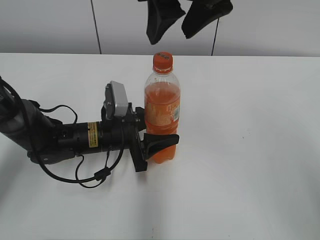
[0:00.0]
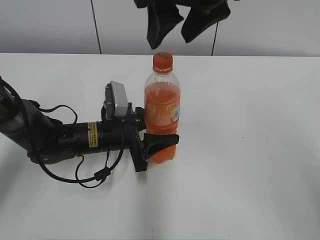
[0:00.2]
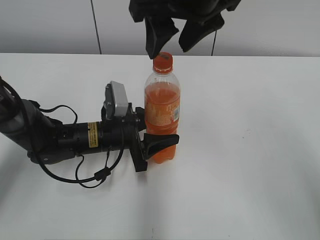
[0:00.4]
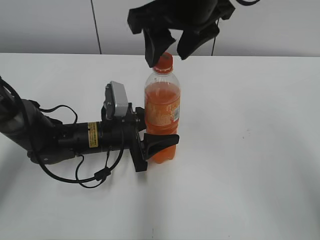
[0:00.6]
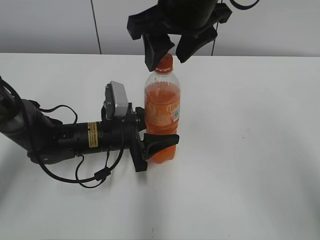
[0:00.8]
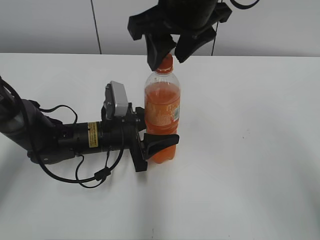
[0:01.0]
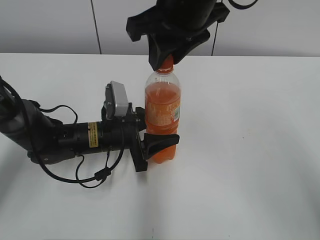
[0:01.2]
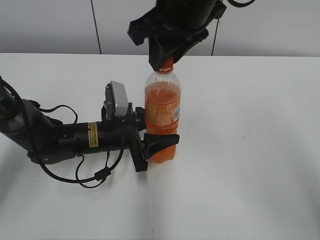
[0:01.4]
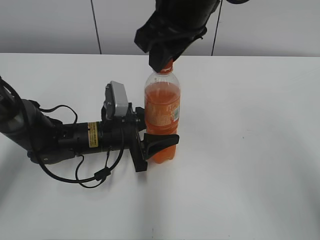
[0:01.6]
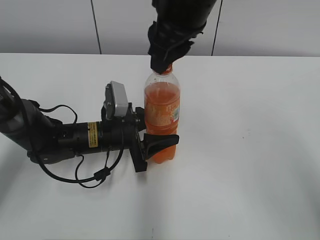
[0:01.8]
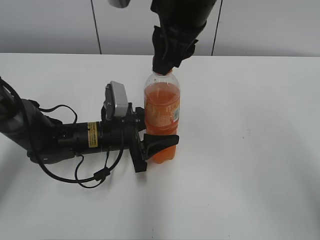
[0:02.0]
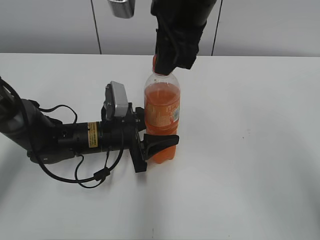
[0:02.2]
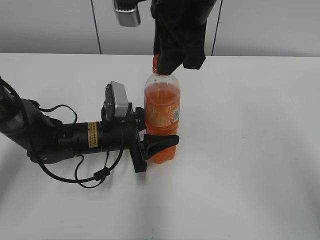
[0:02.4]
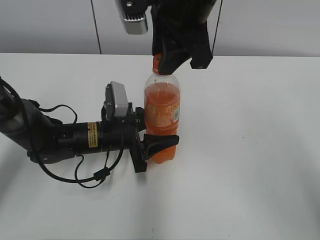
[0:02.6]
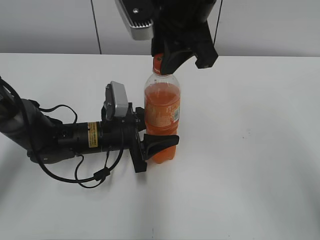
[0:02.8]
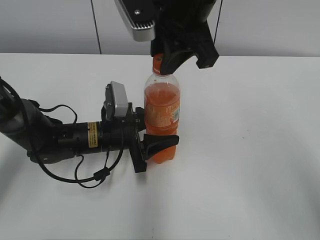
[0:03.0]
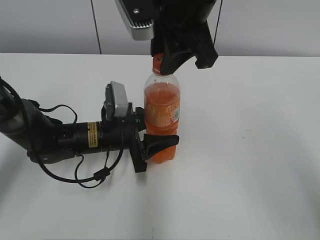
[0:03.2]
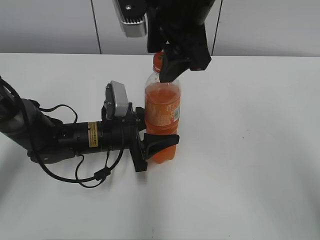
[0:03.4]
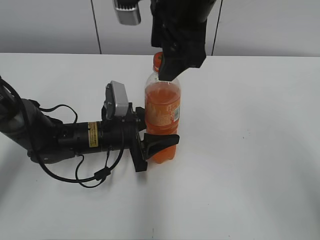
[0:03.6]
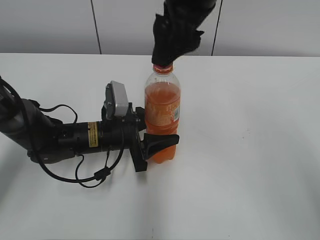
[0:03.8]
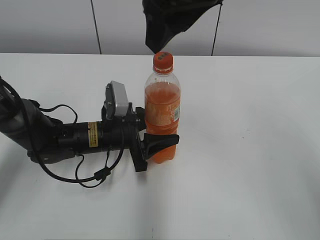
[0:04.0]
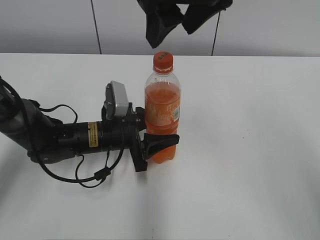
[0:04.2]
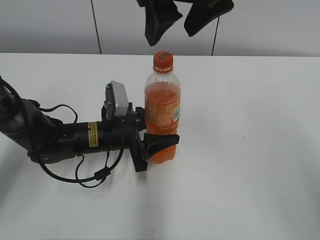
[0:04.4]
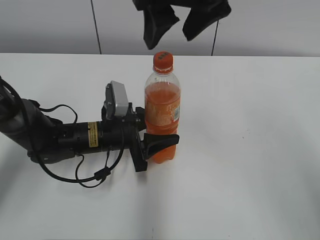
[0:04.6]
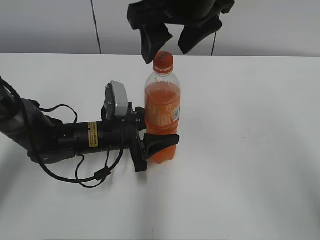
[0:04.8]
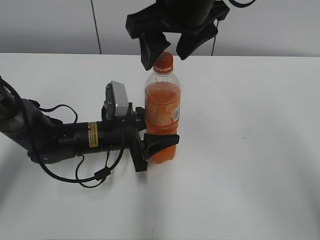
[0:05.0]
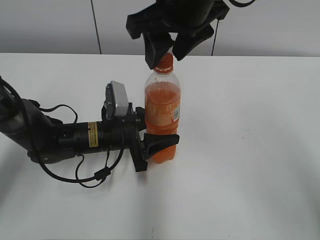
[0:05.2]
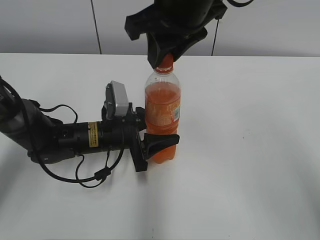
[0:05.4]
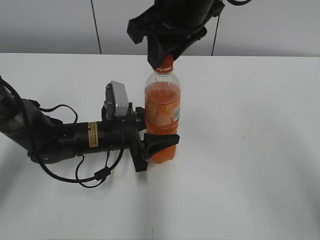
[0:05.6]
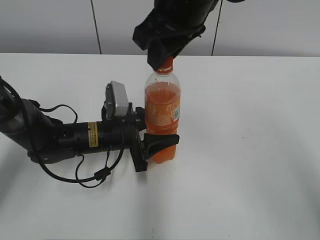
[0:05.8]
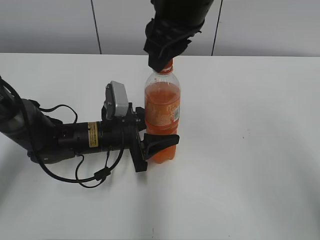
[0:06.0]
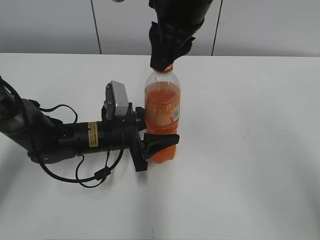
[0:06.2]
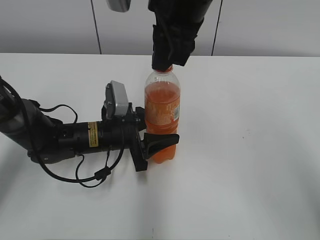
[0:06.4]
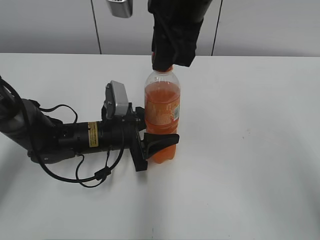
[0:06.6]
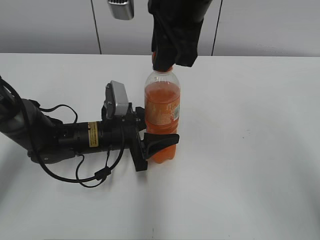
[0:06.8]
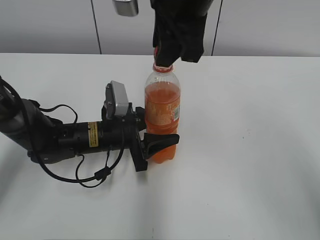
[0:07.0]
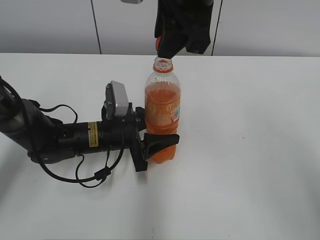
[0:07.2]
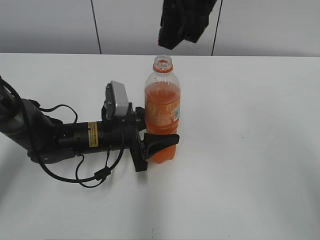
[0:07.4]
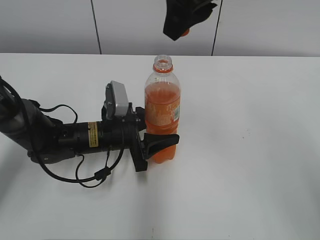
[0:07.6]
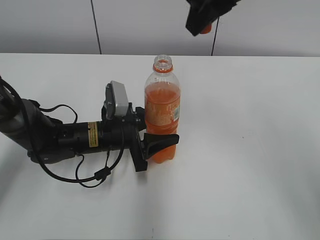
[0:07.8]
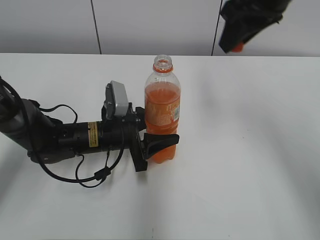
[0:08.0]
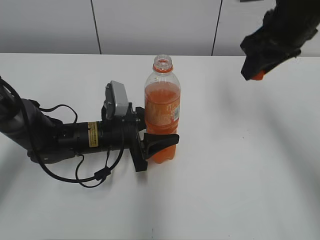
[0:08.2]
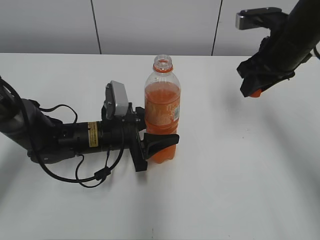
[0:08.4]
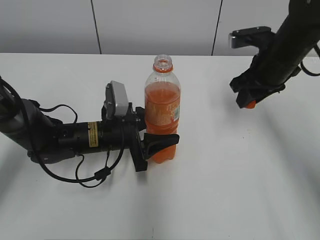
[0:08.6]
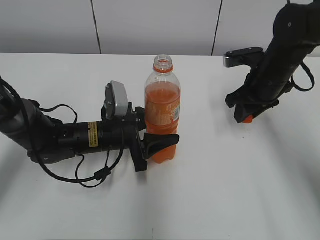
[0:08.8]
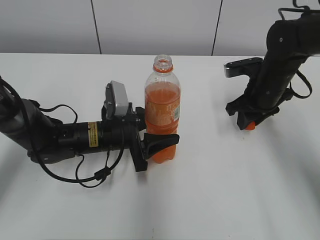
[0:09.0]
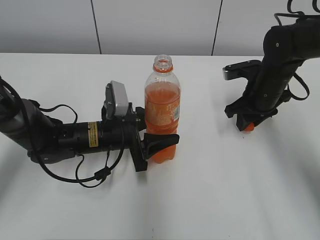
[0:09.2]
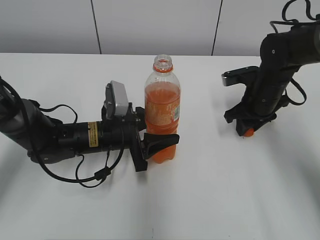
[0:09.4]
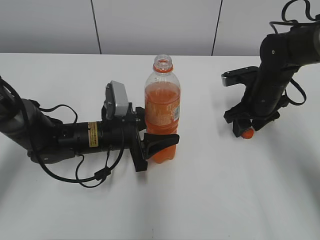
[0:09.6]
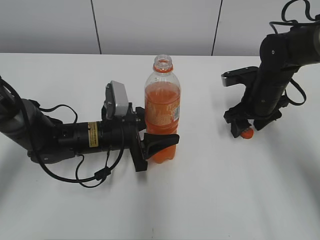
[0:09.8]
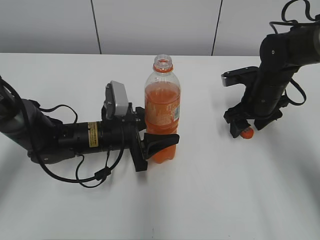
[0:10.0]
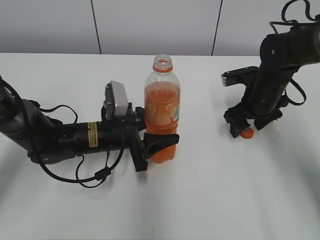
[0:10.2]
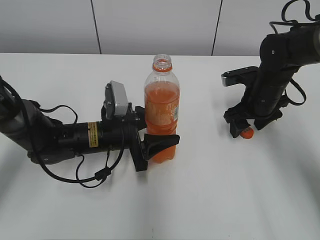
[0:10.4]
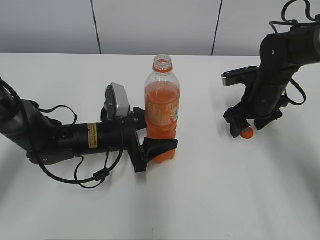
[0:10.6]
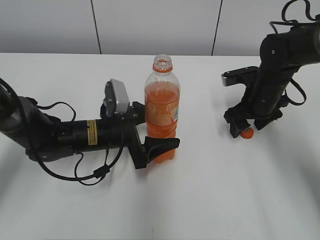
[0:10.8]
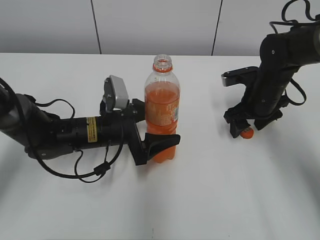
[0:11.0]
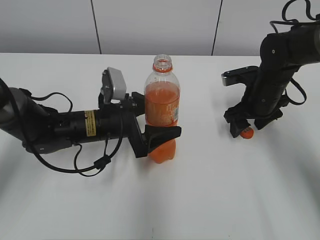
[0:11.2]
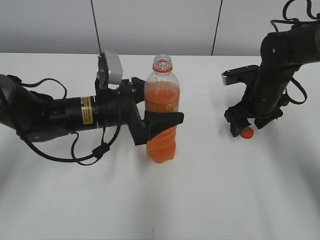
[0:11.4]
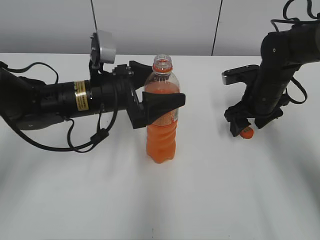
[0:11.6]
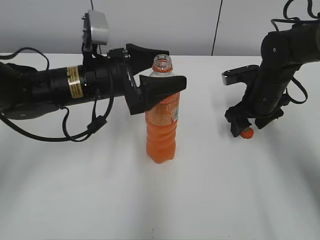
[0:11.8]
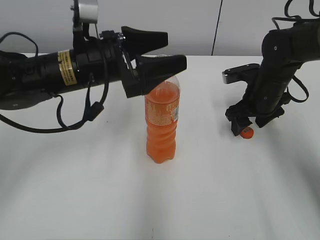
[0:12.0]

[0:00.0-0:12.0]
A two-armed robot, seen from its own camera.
Step, 0:07.2 to 0:10.0: Place the bottle cap on the right.
Step, 0:10.2 to 0:11.0: Place the Mirinda with the left hand.
0:00.0 to 0:01.6: The right gripper closes up.
0:03.0 to 0:04.4: The right gripper opens.
0:04.4 to 0:06.0: The right gripper closes up.
0:06.0 to 0:07.6: The right gripper ends up approximately 5 cm from where it was.
0:07.6 to 0:09.0: The right gripper shifts some 30 cm downward and to the right.
0:09.0 to 0:10.4: The right gripper opens up.
0:10.4 to 0:12.0: The left gripper travels upward by about 15 cm, and opens its fingers.

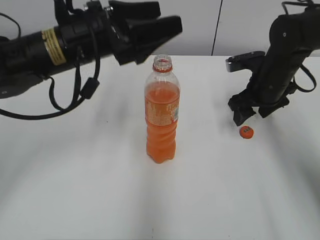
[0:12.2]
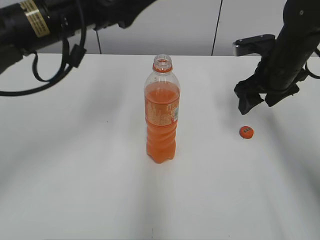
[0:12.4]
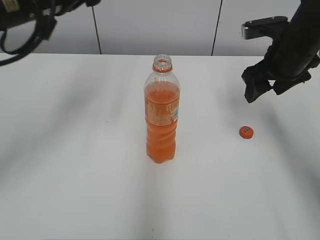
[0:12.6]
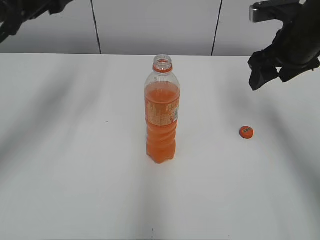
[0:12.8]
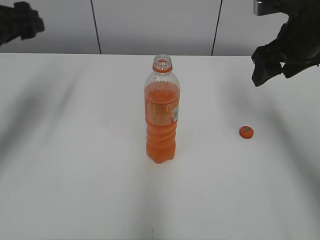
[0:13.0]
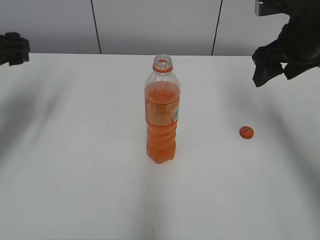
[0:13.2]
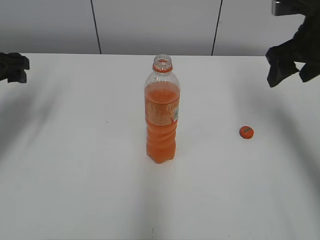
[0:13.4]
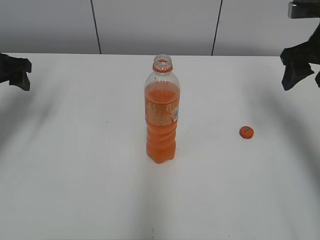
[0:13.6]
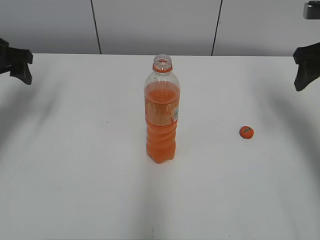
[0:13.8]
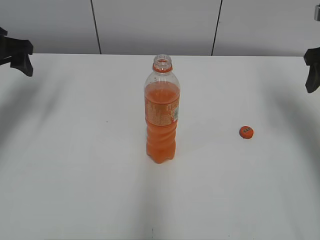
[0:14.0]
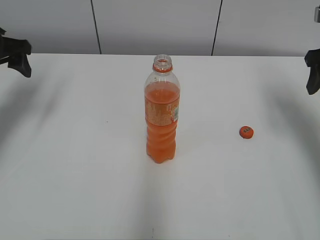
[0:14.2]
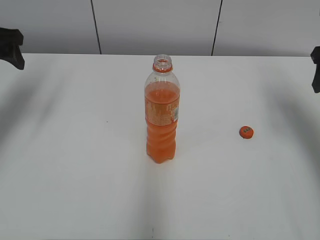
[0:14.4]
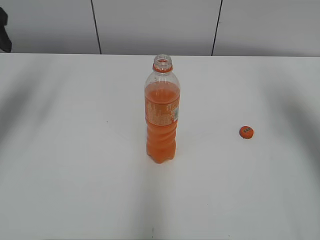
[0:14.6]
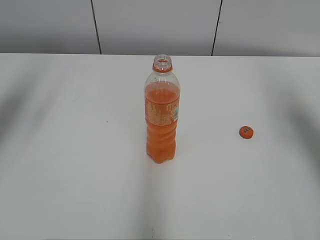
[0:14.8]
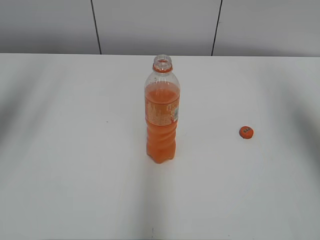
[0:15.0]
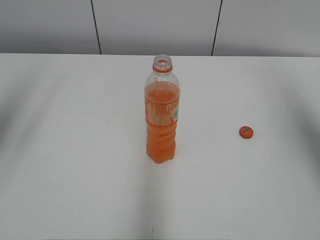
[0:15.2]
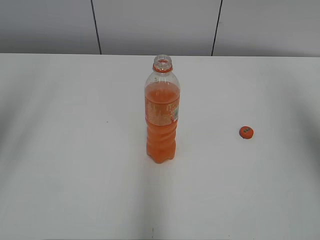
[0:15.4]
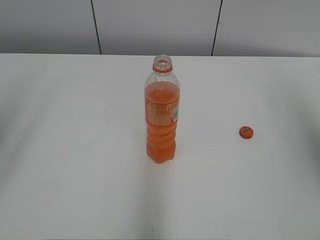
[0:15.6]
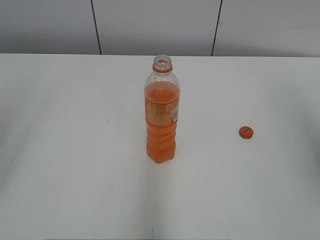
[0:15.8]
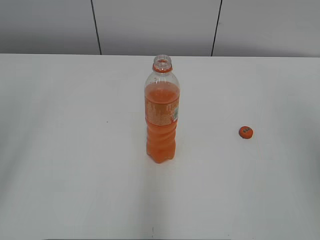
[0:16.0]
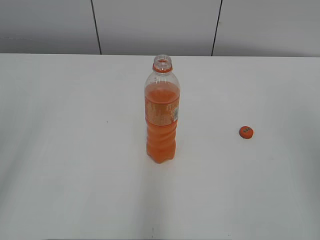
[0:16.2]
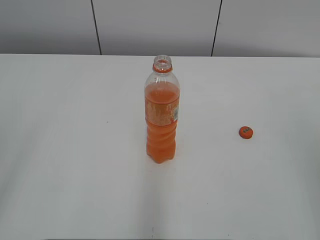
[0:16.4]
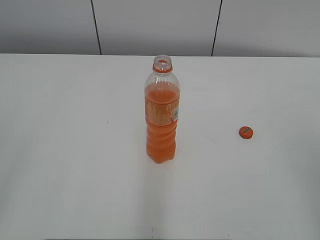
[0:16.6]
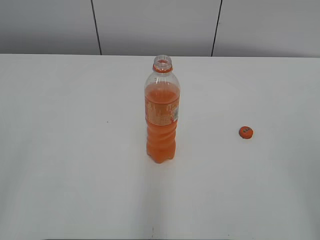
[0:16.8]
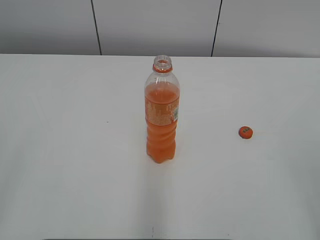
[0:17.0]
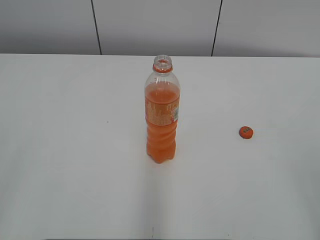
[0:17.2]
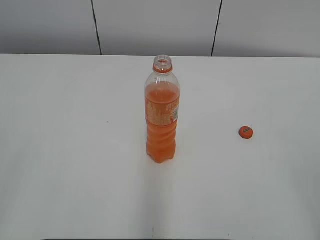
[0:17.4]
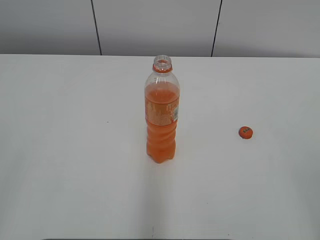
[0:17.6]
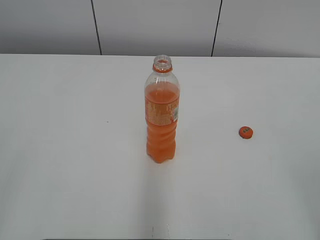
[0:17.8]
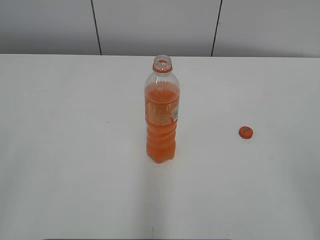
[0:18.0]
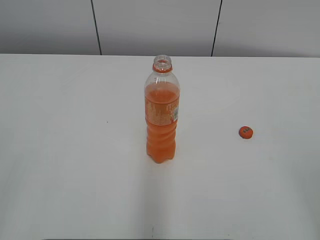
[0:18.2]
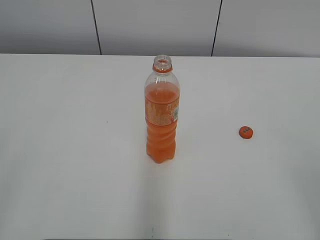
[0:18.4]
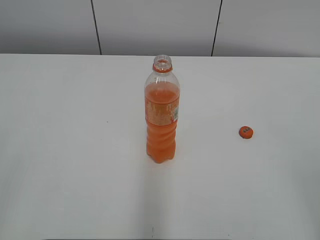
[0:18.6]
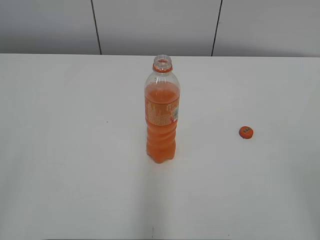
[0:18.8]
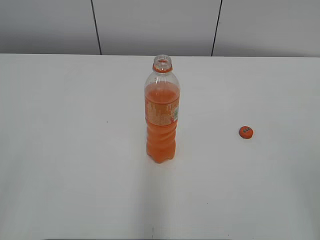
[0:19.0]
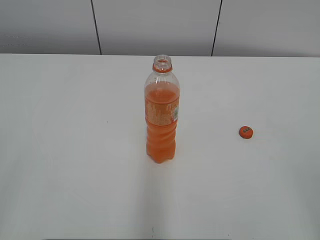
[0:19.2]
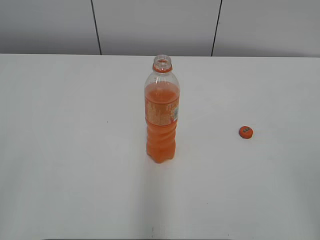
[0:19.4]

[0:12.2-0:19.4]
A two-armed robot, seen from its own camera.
0:12.2 to 0:13.6: The left gripper moves to the left, some 20 cm; the right gripper heads upward and to the right, covering about 15 cm.
0:13.6 to 0:15.0: Both grippers move upward and backward, roughly 15 cm.
0:15.0 to 0:16.6: Both grippers travel together backward, approximately 25 cm.
0:18.0 to 0:19.4: Both grippers stay about where they are.
